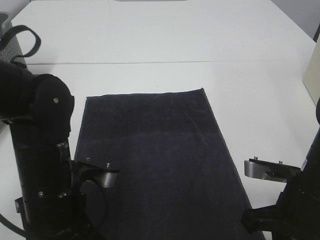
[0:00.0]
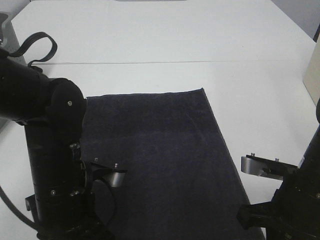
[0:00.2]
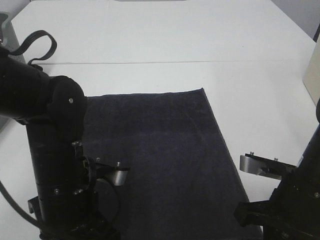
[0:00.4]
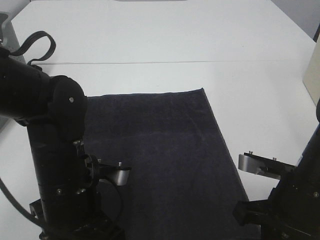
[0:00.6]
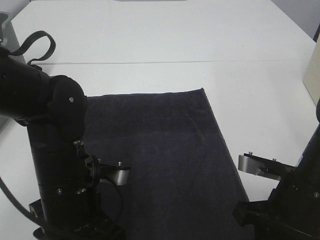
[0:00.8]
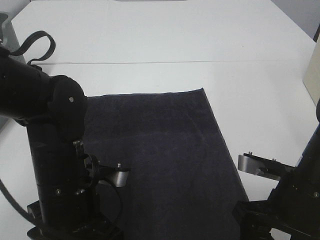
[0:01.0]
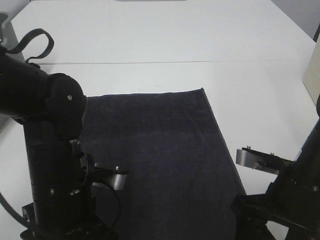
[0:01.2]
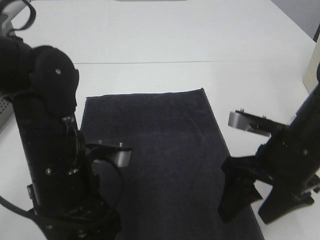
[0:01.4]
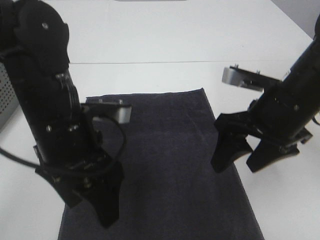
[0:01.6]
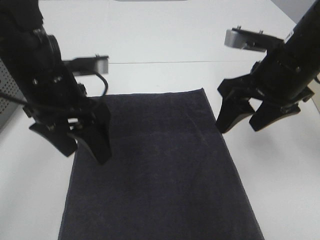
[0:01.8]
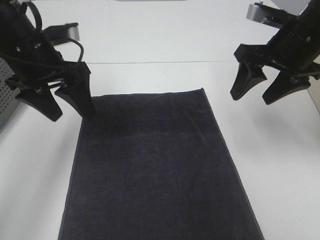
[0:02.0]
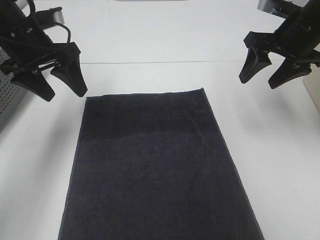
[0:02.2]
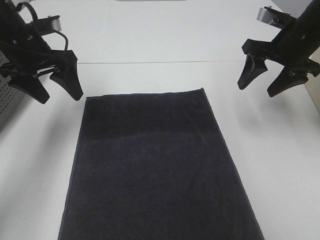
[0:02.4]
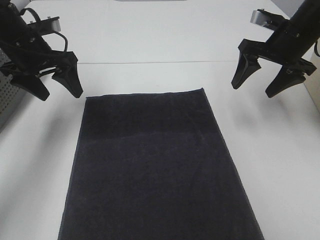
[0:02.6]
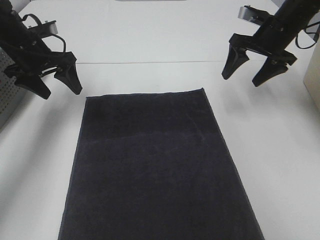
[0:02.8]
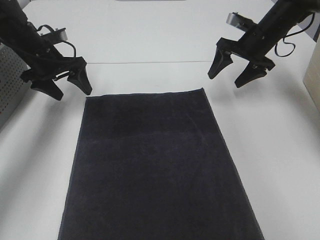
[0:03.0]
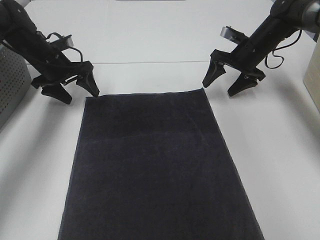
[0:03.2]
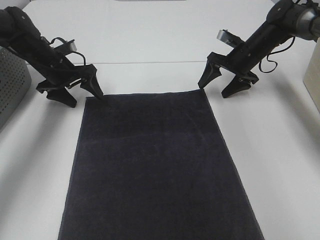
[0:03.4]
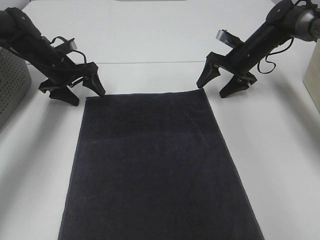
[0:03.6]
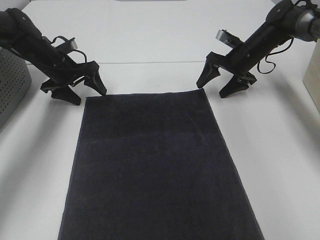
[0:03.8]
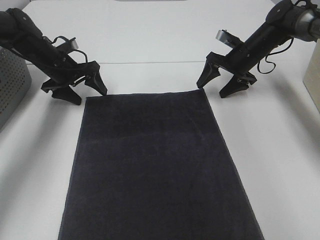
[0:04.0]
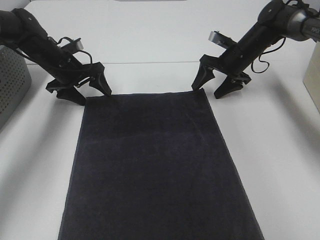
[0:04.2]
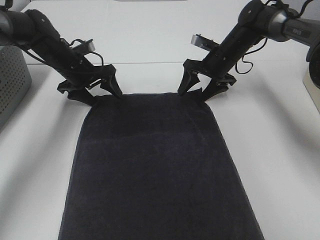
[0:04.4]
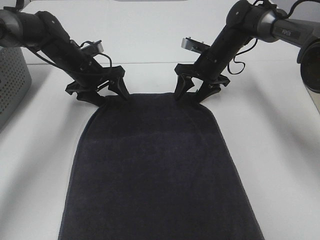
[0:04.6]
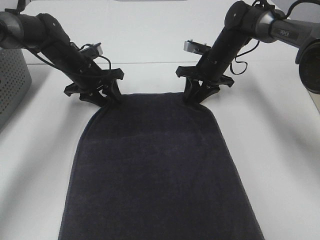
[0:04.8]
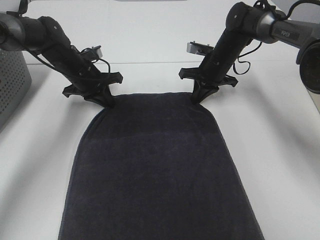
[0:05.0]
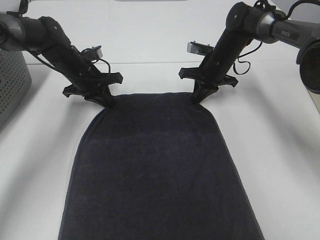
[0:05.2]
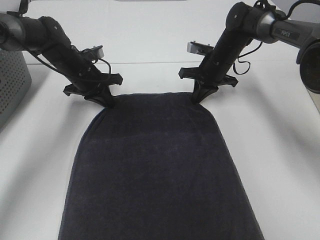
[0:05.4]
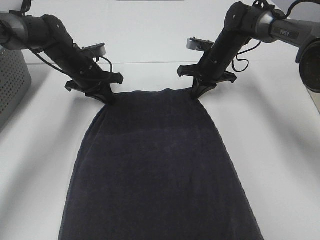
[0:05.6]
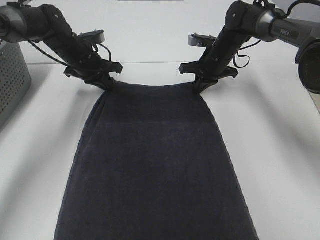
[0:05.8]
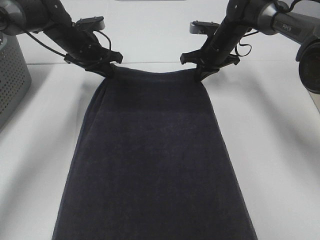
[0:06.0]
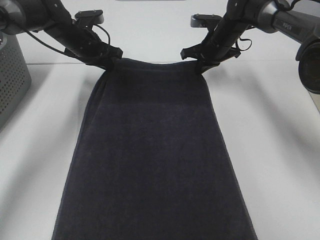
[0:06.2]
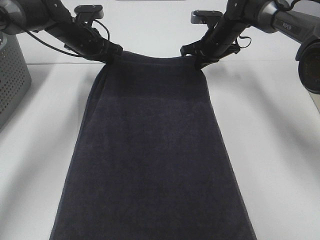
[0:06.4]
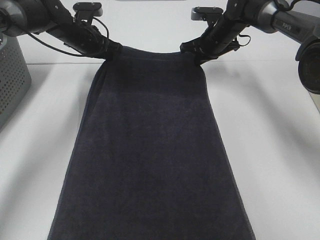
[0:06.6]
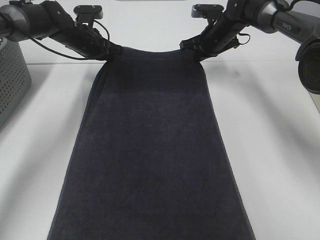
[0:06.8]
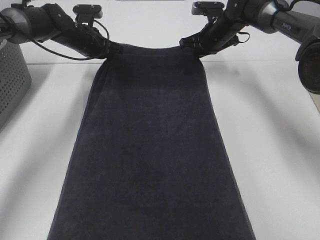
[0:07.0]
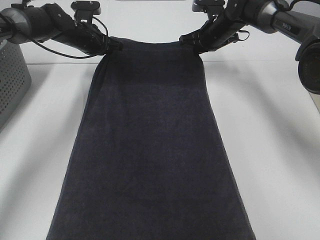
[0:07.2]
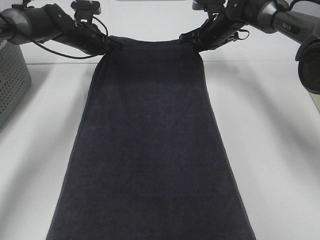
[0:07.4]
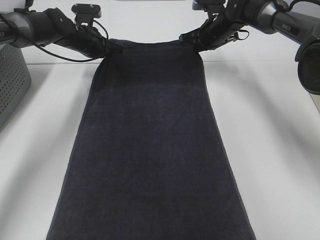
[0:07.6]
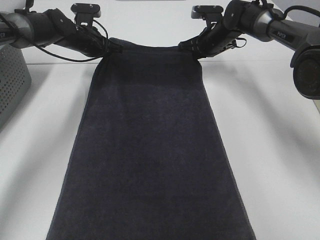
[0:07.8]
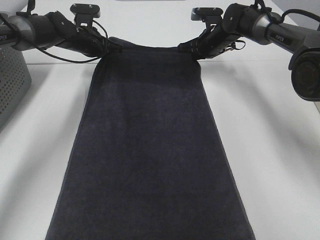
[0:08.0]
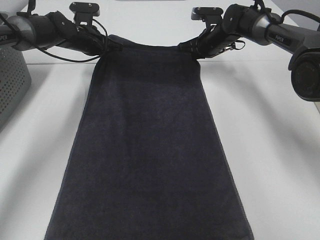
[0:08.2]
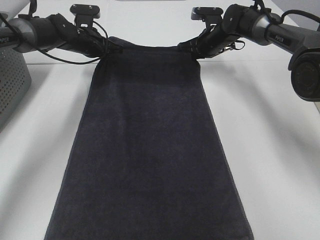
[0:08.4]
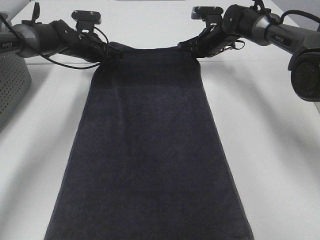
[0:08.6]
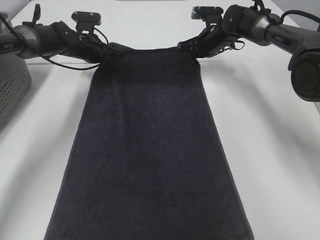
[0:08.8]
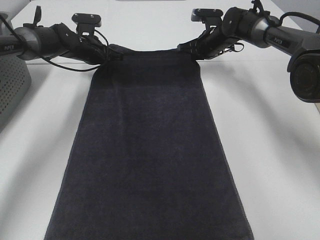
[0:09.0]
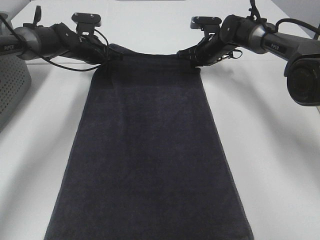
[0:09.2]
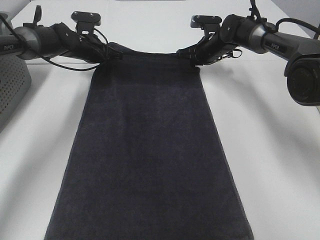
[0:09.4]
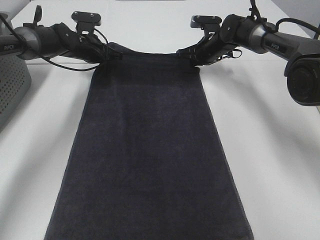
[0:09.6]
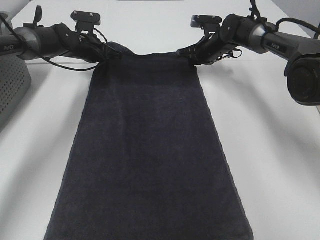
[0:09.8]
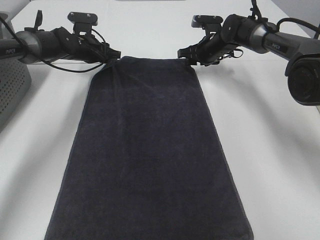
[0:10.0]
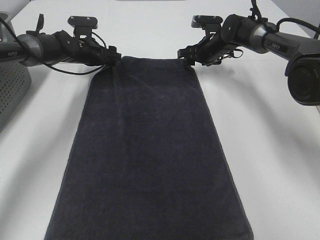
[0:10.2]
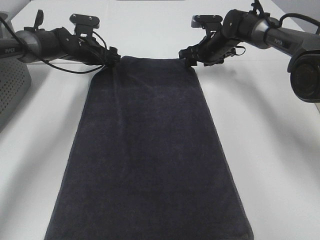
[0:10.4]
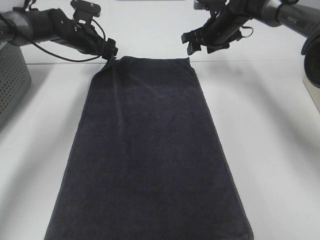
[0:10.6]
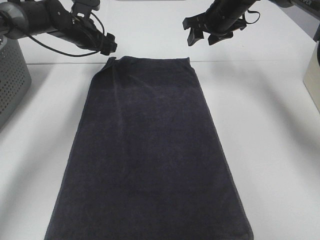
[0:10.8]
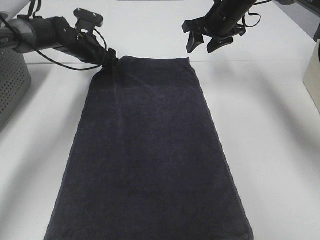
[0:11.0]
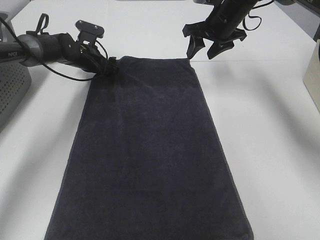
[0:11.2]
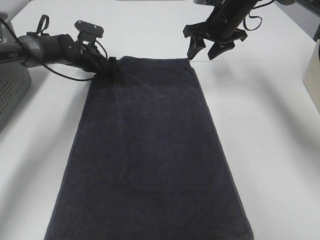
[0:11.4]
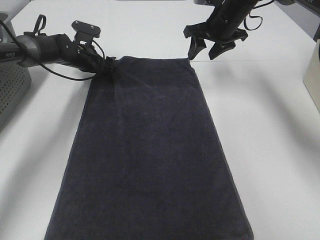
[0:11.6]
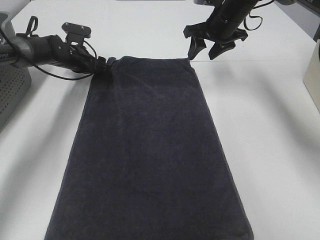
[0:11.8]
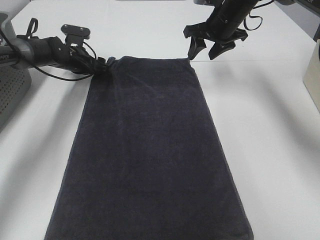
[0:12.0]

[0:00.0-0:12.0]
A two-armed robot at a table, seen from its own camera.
Task of the whole recording: Remove the towel and place it.
Step, 0:00.0 to 0:03.4: Right hand:adjust the gray towel.
Step, 0:00.0 to 0:05.8: Left hand:adjust the blue towel.
0:00.0 to 0:01.6: The right gripper travels forward and upward by about 10 cm, and opens its fingers. Meanwhile the left gripper shifts approximately 5 cm upward, and opens its fingers.
0:01.6 to 0:03.0: The right gripper is displaced forward by roughly 25 cm, while the left gripper shifts some 30 cm forward and to the left.
0:03.0 to 0:04.4: The right gripper shifts roughly 10 cm to the left and downward; the left gripper travels to the right by approximately 5 cm.
0:04.4 to 0:06.0: The right gripper closes; the left gripper moves some 5 cm, and closes.
0:07.6 to 0:09.0: There are only small adjustments of the grippers.
0:09.0 to 0:10.4: The left gripper opens up, while the right gripper opens its fingers.
0:10.4 to 0:12.0: The right gripper goes about 10 cm upward.

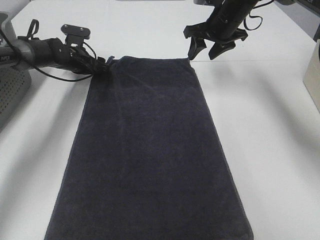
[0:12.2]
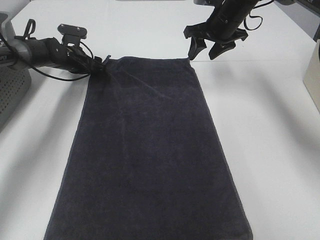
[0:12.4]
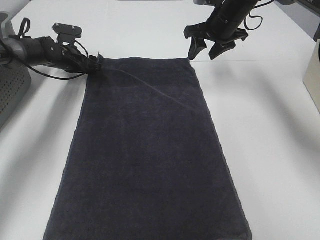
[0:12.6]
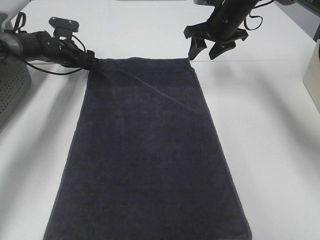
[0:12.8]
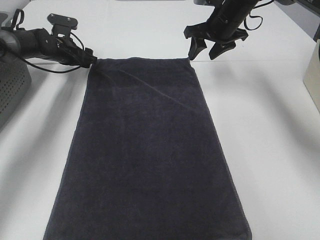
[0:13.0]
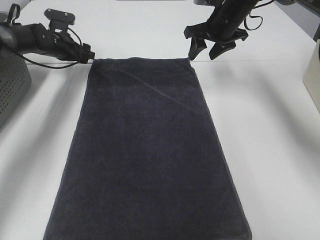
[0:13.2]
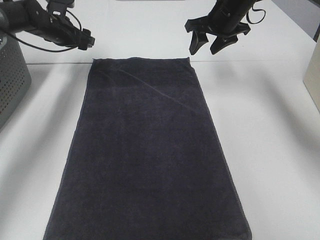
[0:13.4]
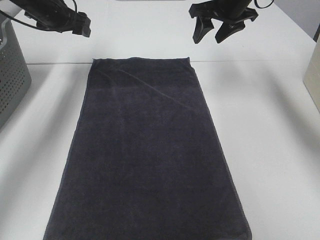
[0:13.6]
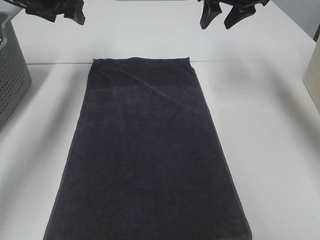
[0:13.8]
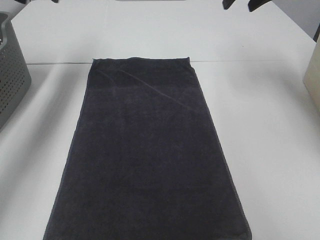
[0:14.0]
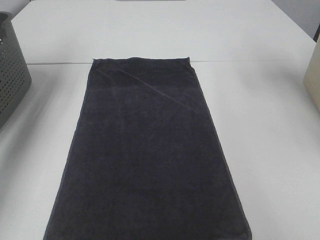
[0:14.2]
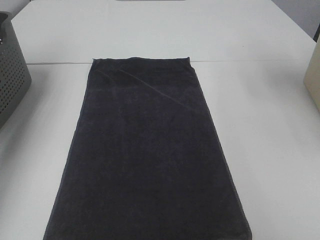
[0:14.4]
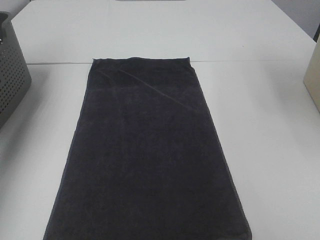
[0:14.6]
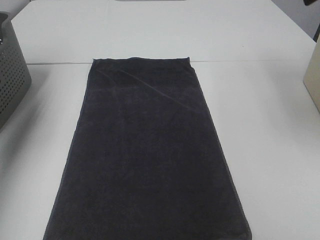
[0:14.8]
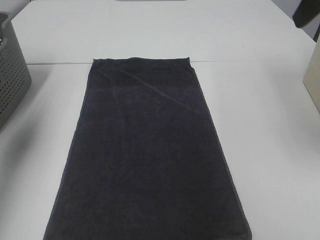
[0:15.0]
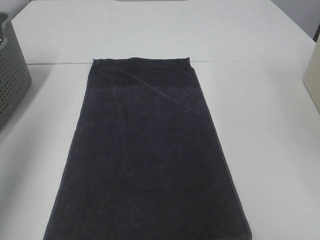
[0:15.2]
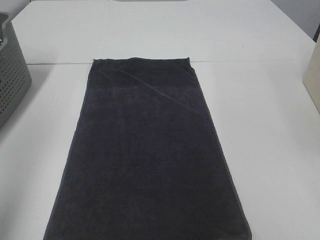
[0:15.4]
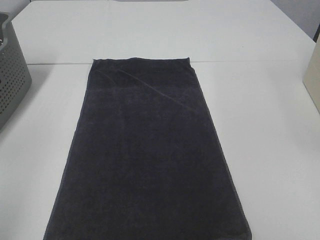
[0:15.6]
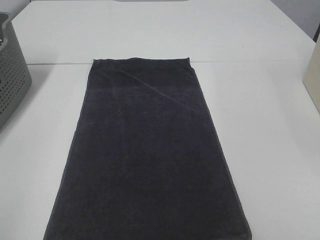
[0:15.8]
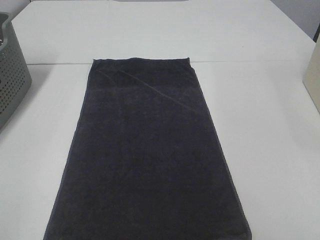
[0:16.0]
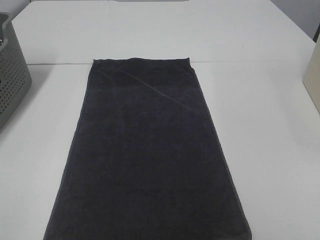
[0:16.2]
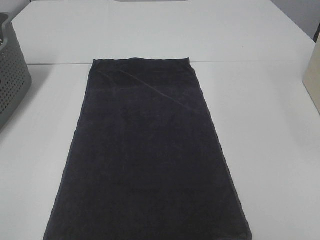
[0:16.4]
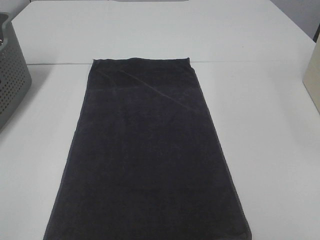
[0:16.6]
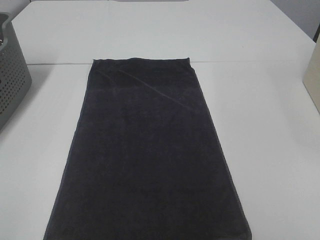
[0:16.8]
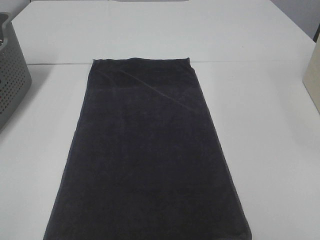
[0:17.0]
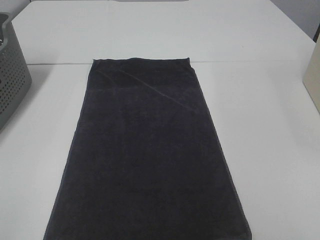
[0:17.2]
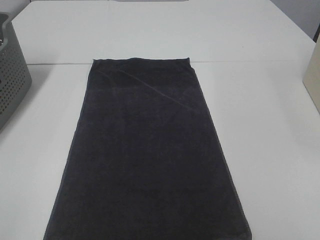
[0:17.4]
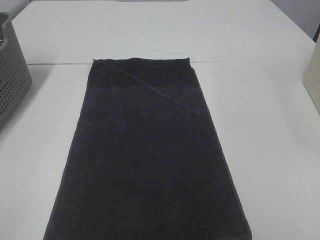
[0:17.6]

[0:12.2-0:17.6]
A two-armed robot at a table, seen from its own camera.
Task of the whole recording: Remove the towel and place it.
0:12.2 to 0:13.6: The left gripper heads upward, covering roughly 15 cm. Meanwhile the right gripper moves upward, roughly 5 cm.
0:13.6 to 0:15.0: The right gripper travels backward and upward by approximately 25 cm. The left gripper is displaced backward, upward and to the left by some 35 cm.
0:15.0 to 0:16.2: The right gripper goes about 30 cm backward and downward. Meanwhile the left gripper shifts approximately 30 cm backward.

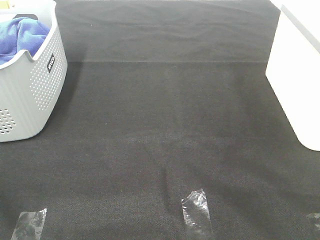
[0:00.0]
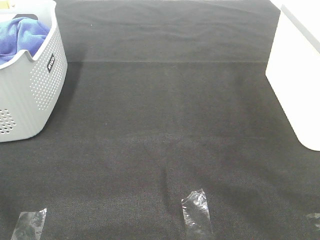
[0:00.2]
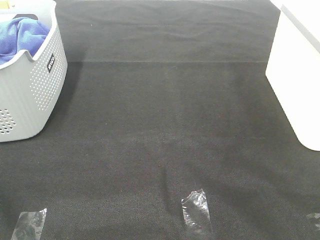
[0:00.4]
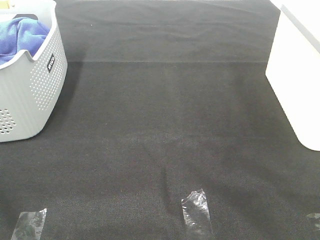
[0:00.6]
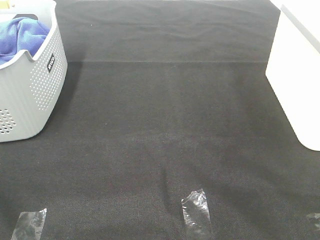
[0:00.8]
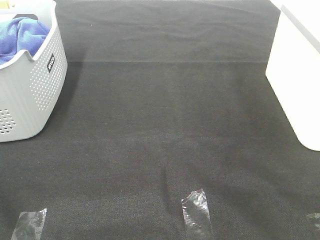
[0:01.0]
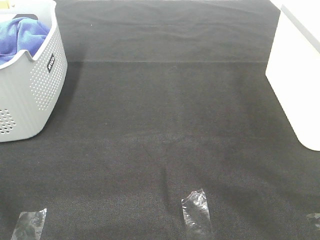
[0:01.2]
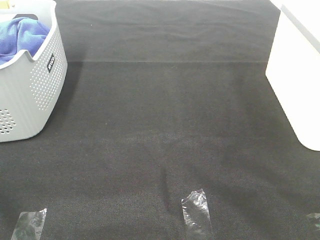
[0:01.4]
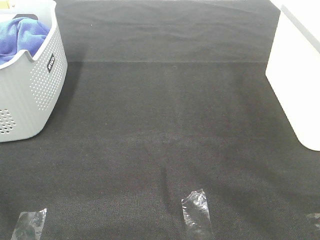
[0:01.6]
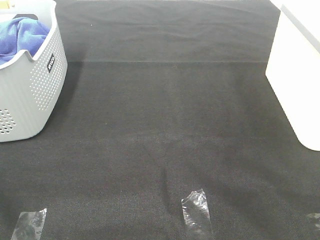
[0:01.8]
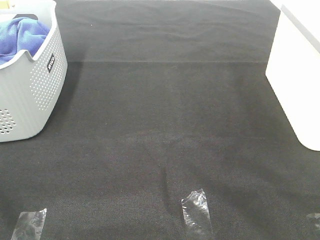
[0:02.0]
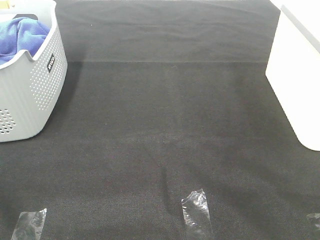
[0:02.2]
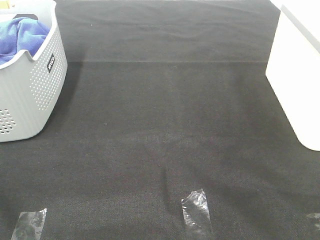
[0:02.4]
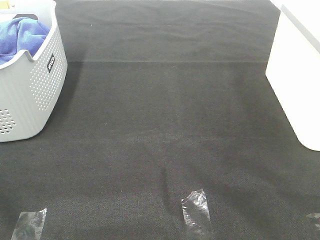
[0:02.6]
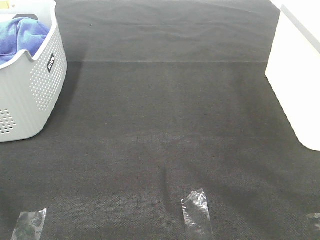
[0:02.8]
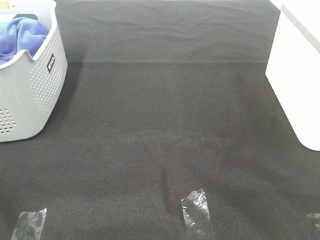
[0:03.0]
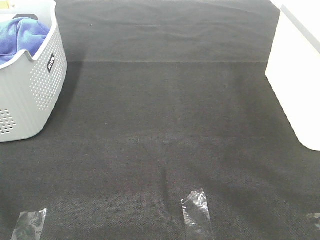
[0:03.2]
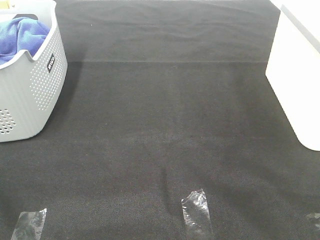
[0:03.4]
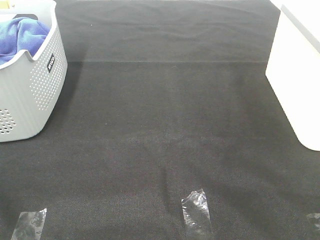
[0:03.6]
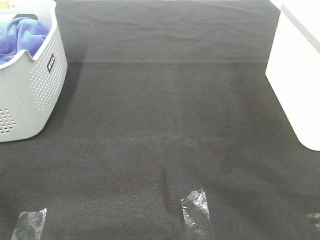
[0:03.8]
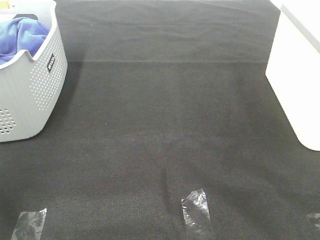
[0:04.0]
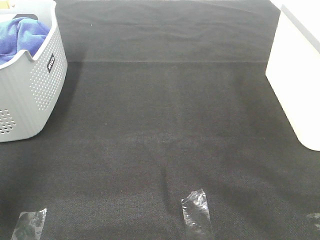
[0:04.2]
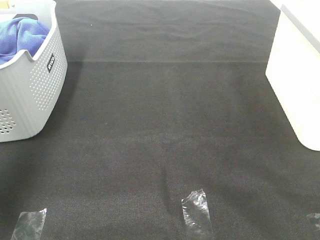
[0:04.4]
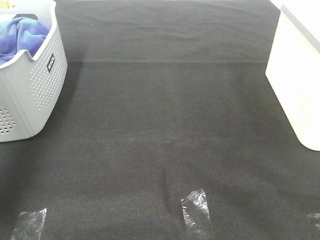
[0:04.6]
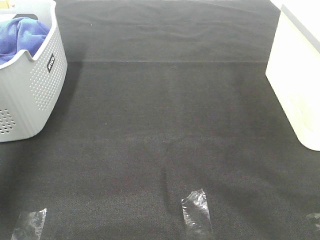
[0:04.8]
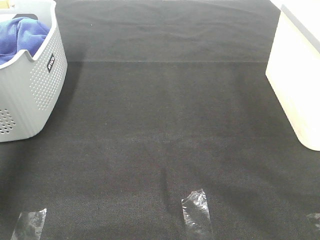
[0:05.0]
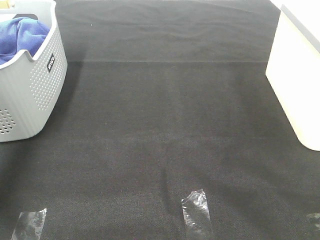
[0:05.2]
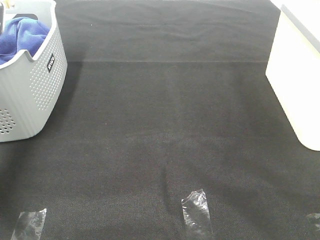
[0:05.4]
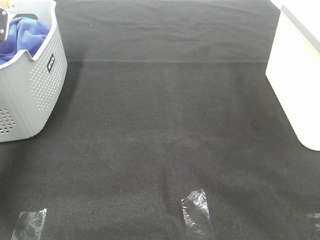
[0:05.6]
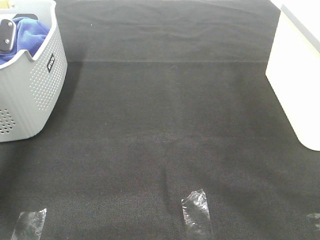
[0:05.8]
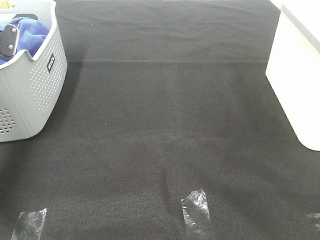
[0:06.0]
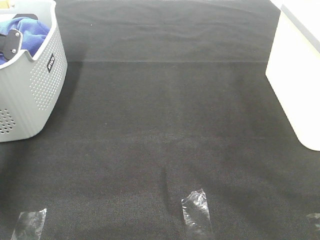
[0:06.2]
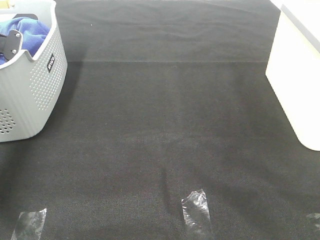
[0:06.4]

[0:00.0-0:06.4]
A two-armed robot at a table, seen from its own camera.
Task of the whole recording: Remove the towel and place it.
0:00.0 to 0:03.2: Neither gripper changes place.
0:03.2 to 0:04.8: The left gripper travels forward by roughly 40 cm.
